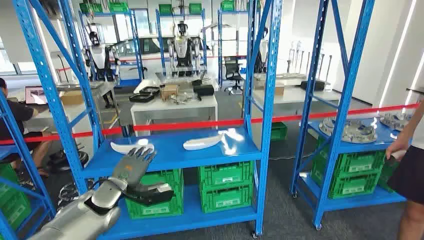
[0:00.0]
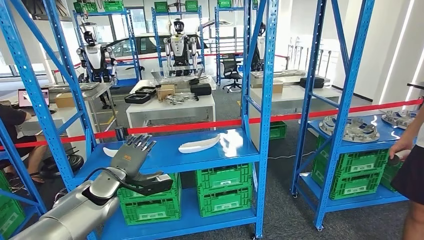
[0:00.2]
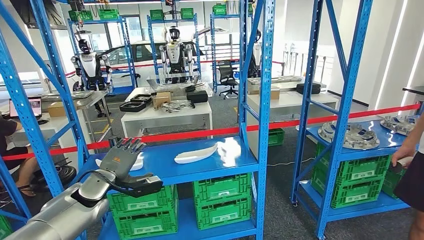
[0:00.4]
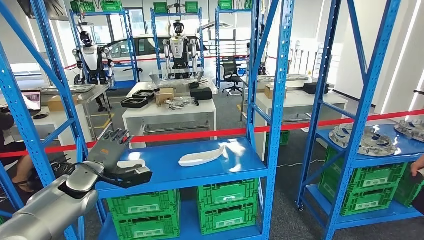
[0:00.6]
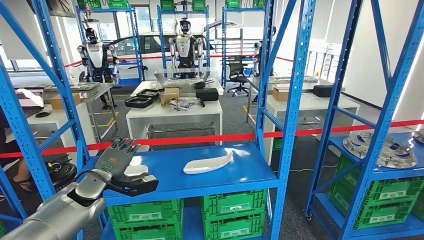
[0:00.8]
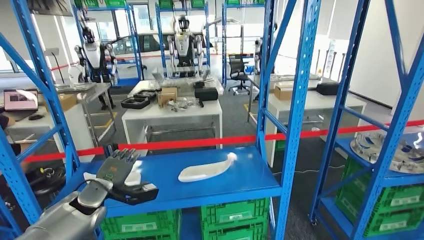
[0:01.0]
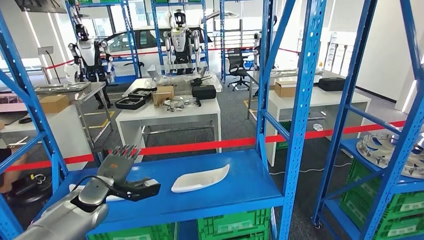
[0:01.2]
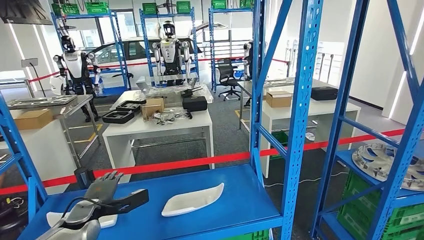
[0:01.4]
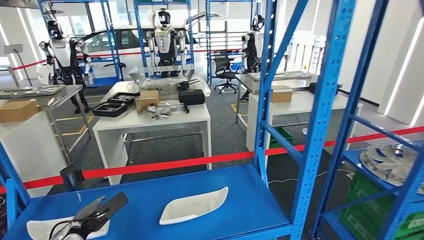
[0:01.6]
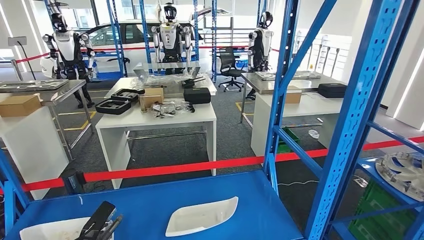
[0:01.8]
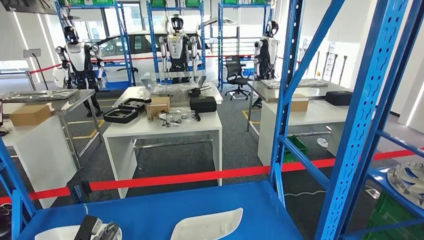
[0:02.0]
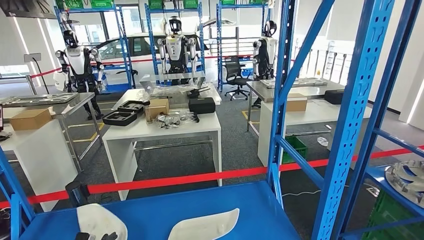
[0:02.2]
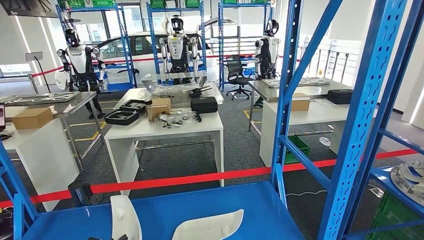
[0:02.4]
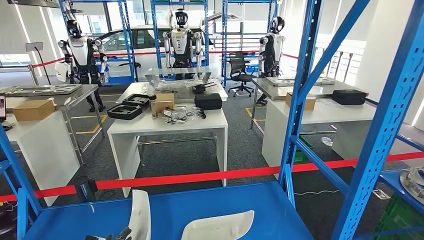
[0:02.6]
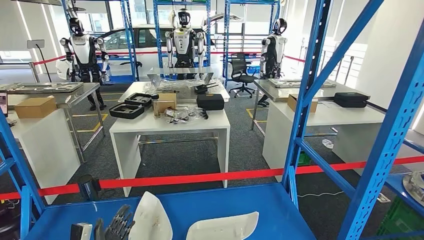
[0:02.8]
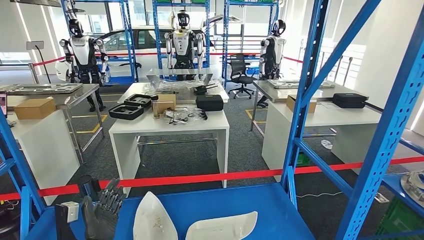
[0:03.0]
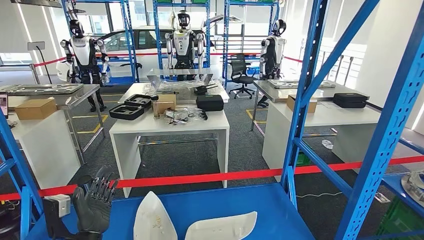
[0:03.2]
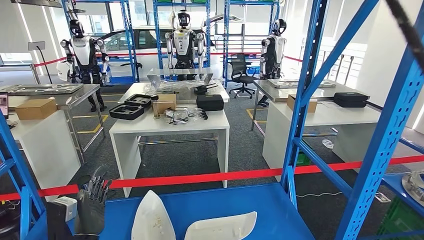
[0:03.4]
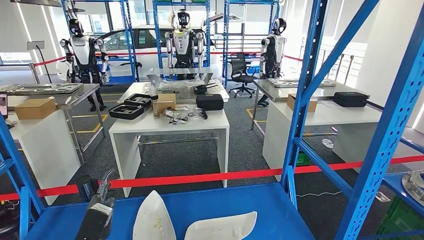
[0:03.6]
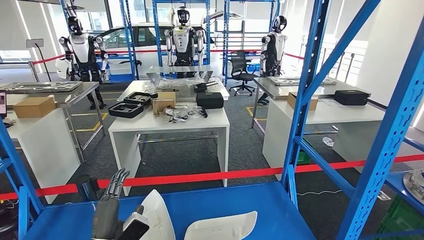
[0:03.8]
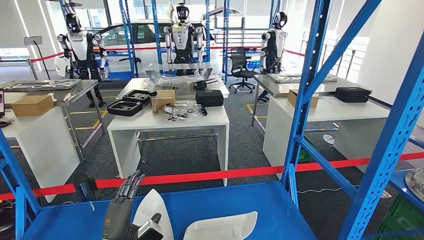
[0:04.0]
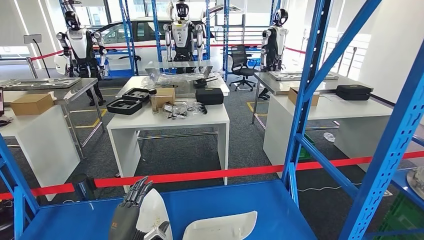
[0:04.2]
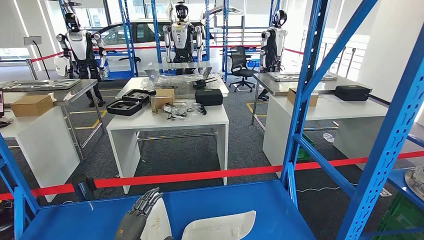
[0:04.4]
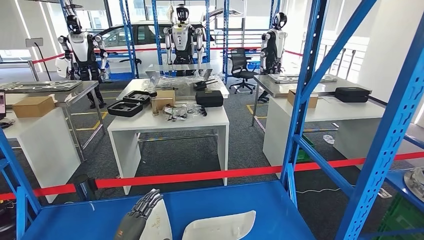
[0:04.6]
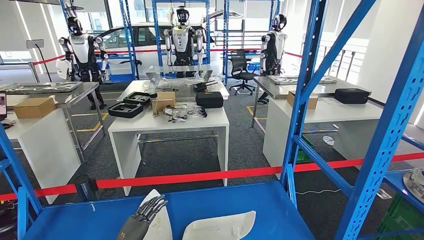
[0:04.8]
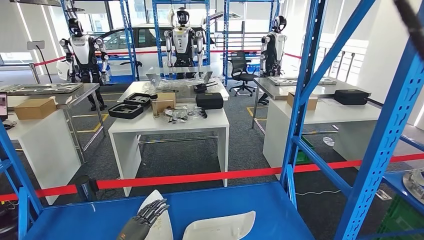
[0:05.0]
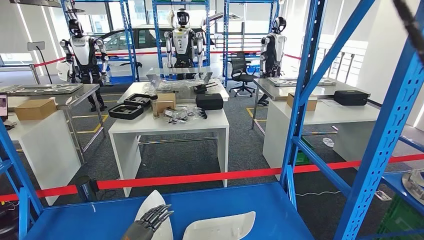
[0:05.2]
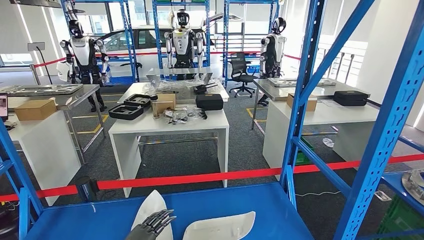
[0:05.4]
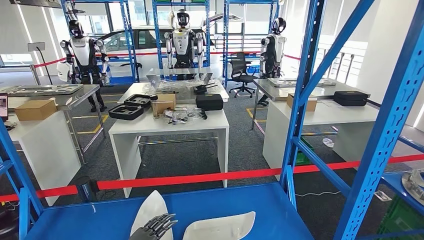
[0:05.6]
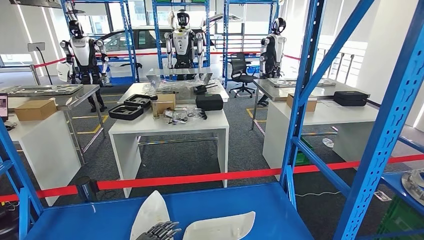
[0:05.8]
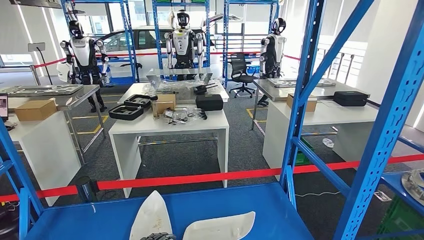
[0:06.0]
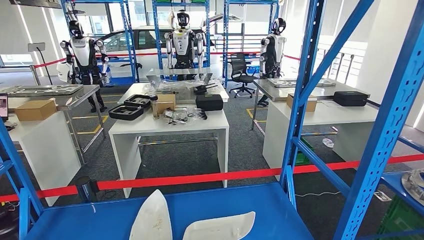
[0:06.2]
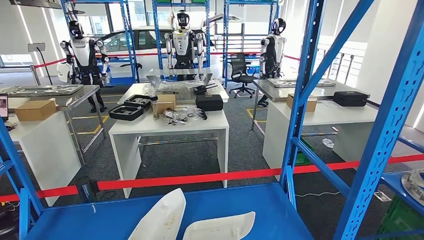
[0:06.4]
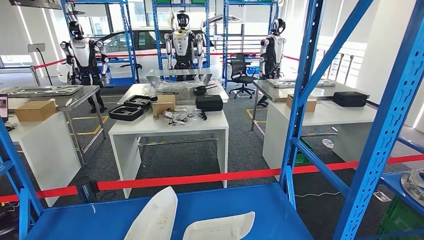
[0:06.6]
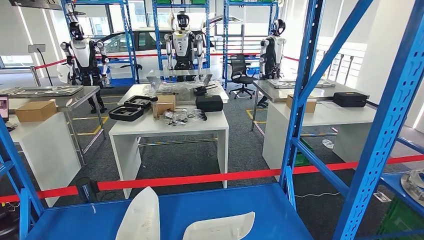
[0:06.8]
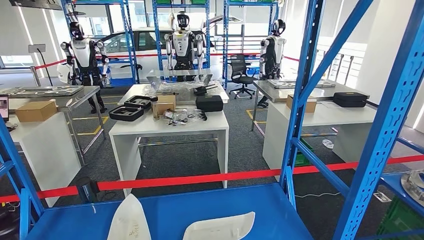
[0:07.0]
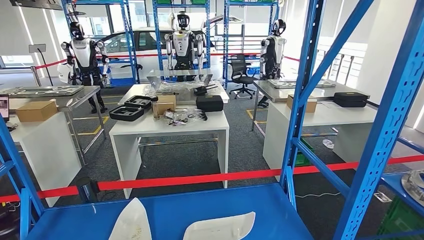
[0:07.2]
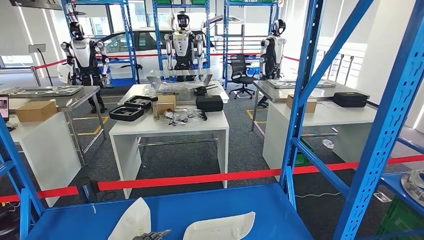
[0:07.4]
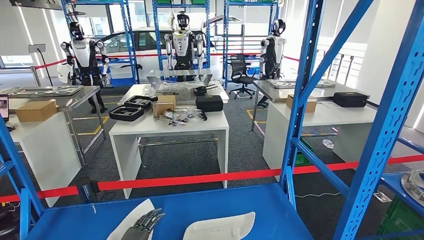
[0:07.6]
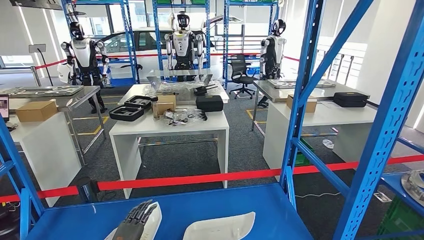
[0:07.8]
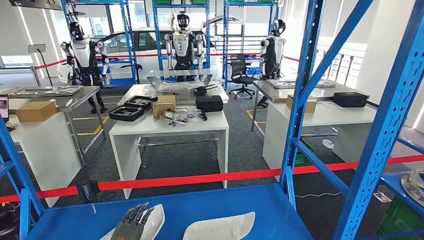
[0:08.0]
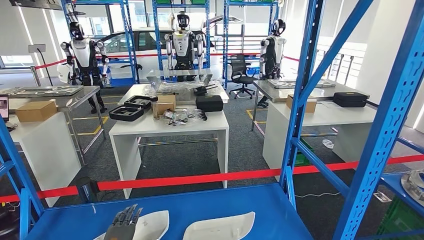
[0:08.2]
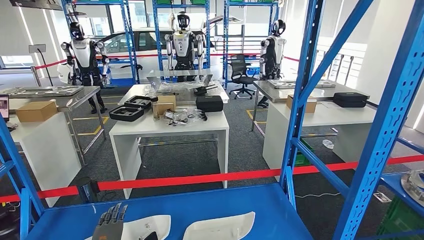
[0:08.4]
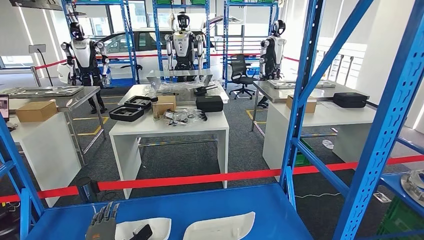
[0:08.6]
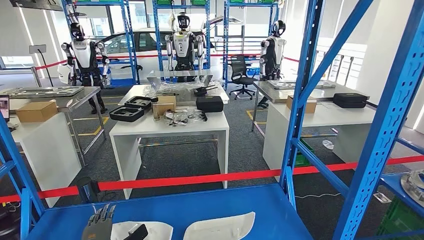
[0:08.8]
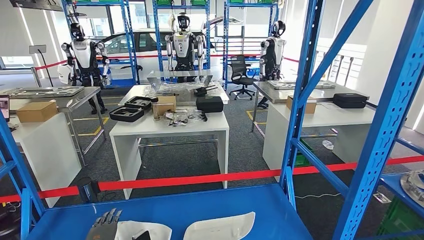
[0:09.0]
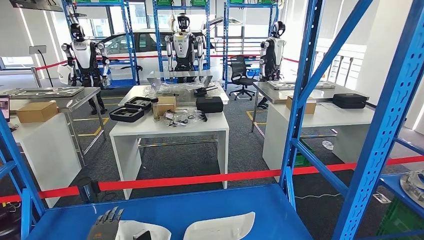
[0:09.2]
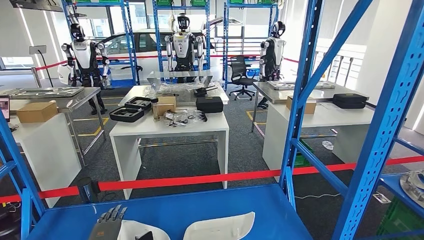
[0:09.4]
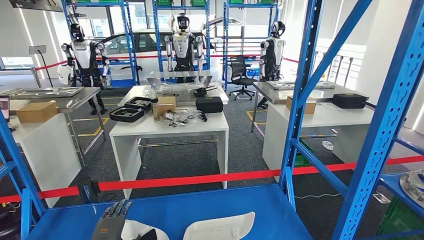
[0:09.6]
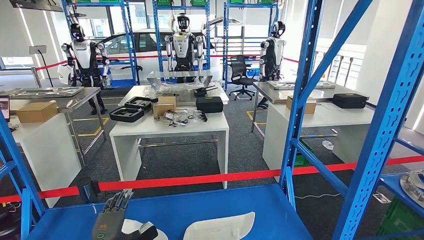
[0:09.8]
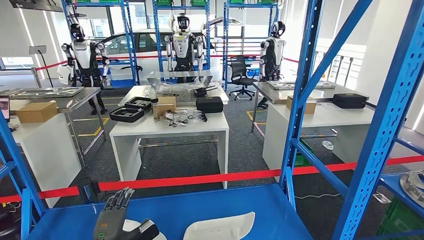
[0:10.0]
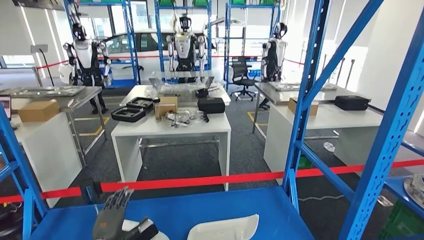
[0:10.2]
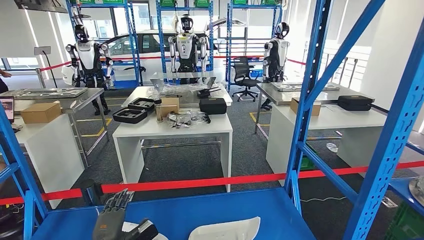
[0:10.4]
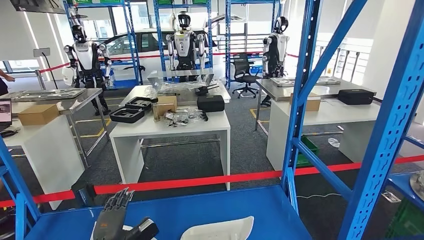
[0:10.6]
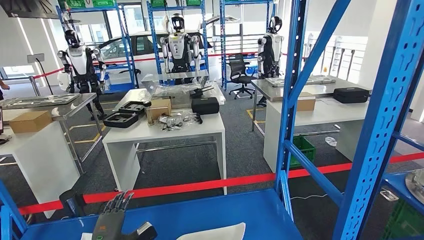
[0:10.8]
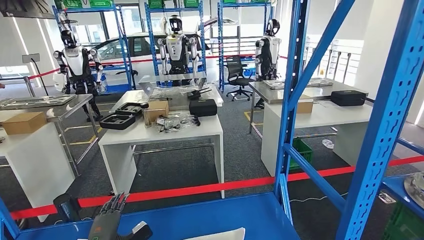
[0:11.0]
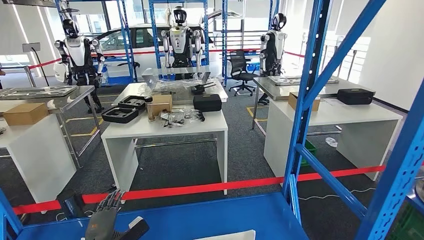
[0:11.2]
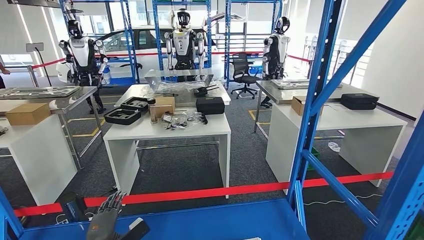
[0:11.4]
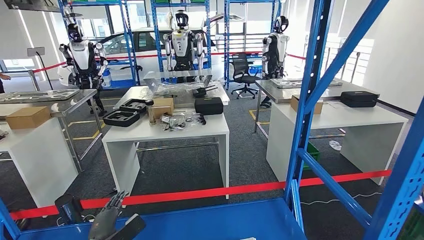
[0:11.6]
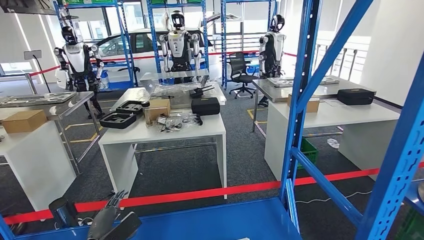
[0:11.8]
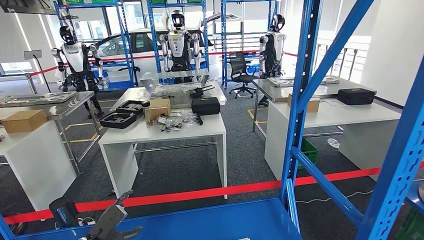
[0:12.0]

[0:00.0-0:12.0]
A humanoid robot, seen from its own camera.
0:07.6 to 0:09.0: The left hand changes place by approximately 5 cm.

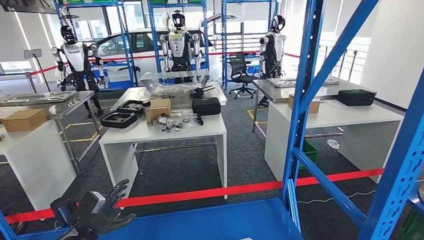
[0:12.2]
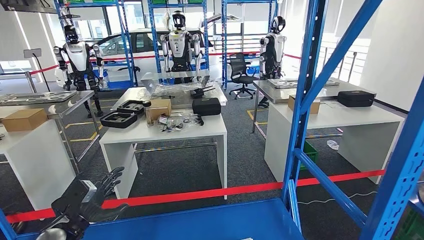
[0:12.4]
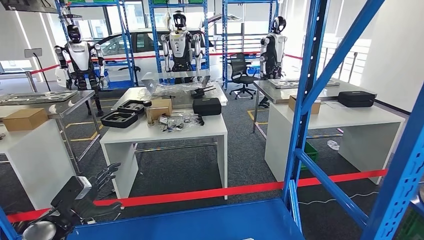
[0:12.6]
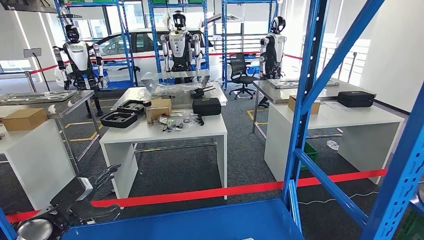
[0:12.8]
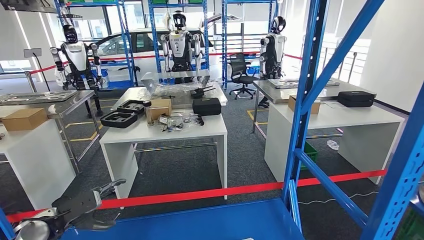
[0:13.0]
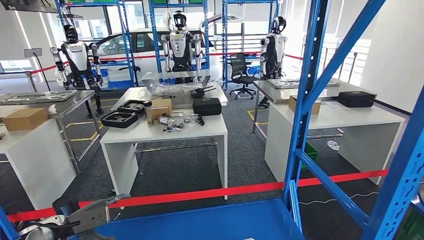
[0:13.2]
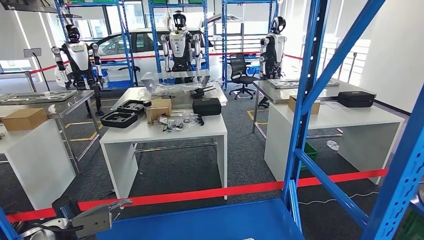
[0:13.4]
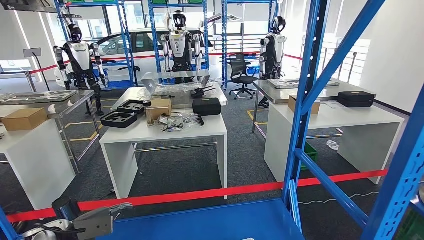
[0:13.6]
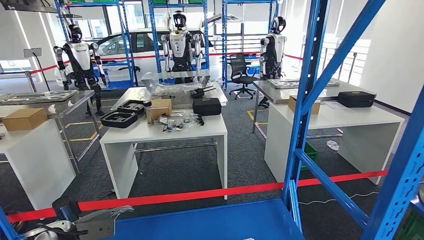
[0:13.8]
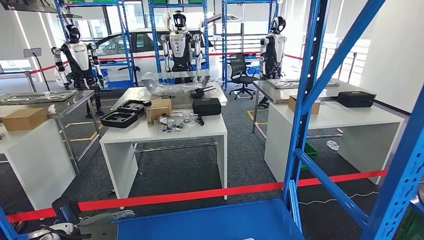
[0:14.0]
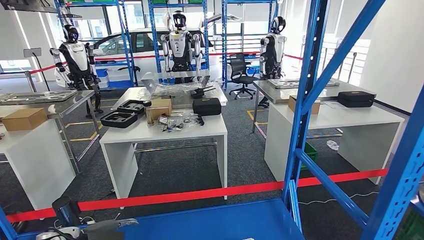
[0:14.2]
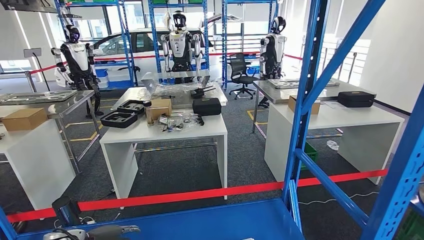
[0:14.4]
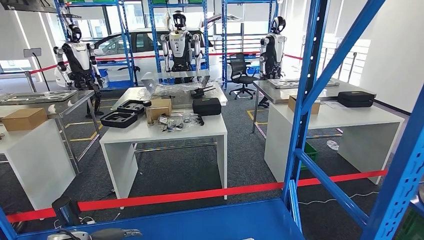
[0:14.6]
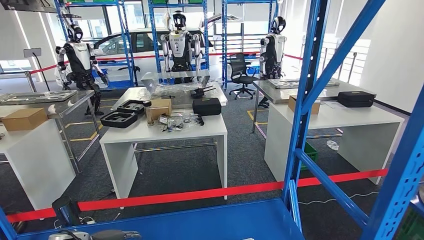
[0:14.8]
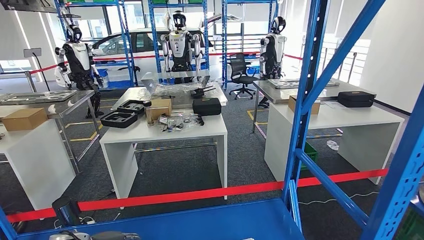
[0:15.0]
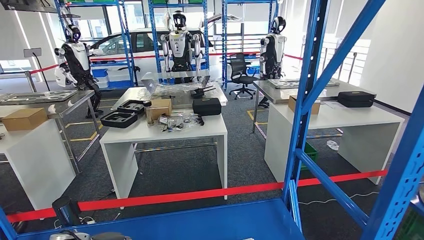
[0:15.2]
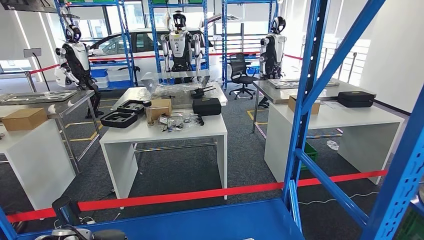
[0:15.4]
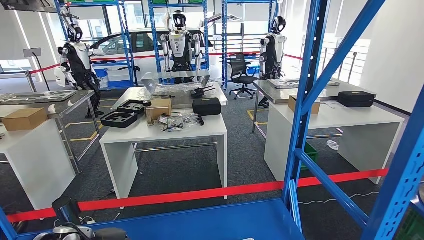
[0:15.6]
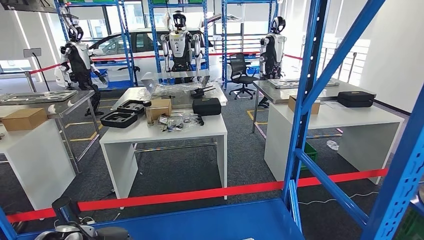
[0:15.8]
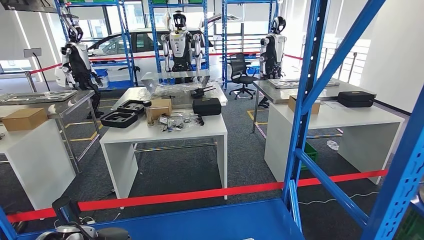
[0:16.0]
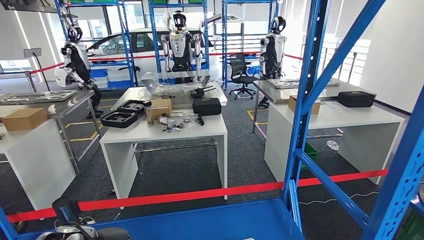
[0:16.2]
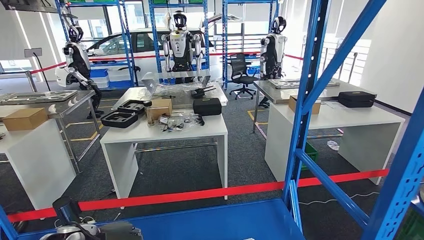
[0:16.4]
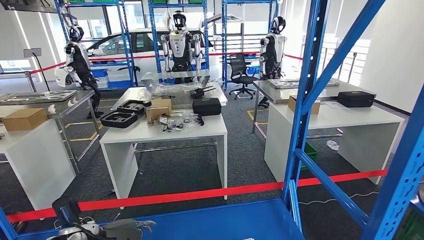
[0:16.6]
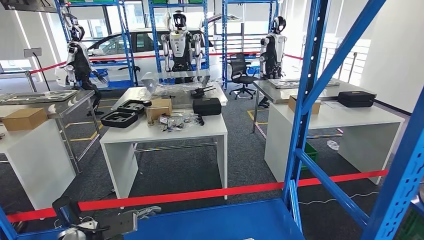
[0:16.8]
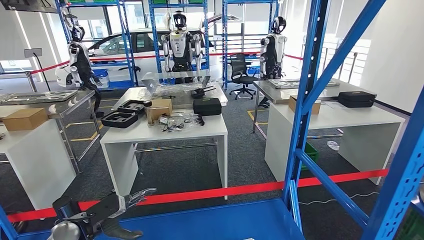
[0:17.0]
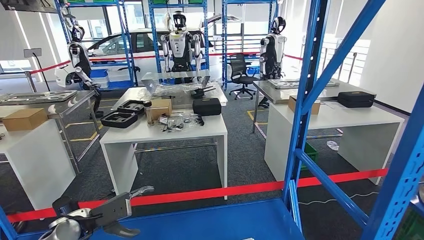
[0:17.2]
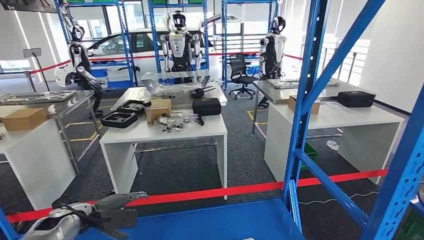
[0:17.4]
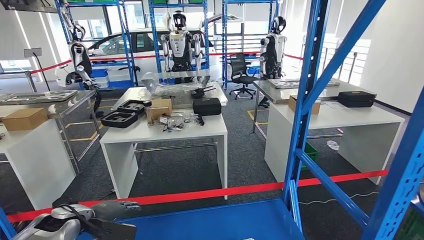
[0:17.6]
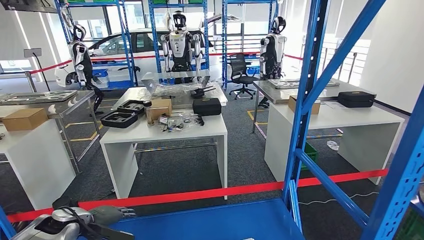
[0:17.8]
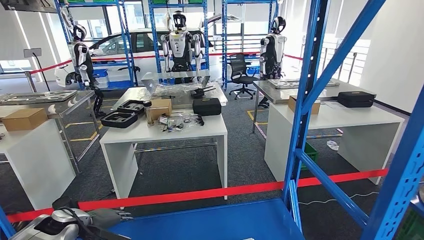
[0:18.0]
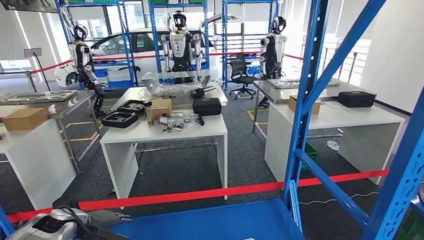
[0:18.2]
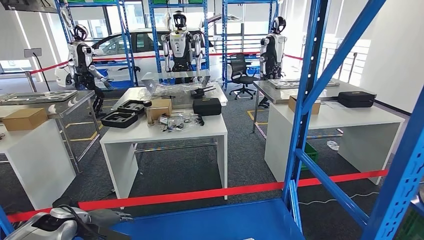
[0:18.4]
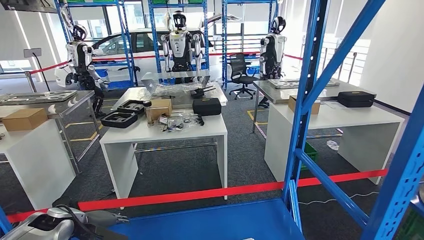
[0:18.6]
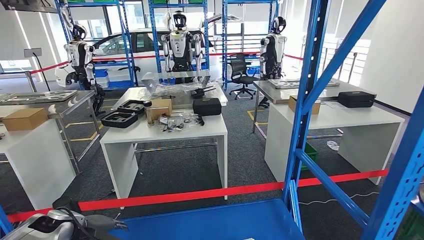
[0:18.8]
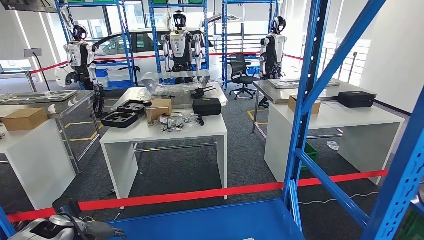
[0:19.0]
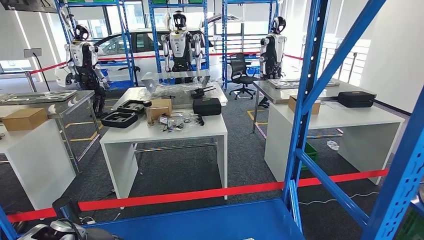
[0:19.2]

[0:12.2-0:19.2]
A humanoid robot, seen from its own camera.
0:12.2 to 0:13.6: The left hand is displaced to the left and upward by about 10 cm.
0:15.0 to 0:16.4: The hands make only small movements.
0:16.4 to 0:17.8: The left hand shifts by approximately 5 cm.
0:17.8 to 0:19.2: The hands stay close to where they were, moving slightly.
